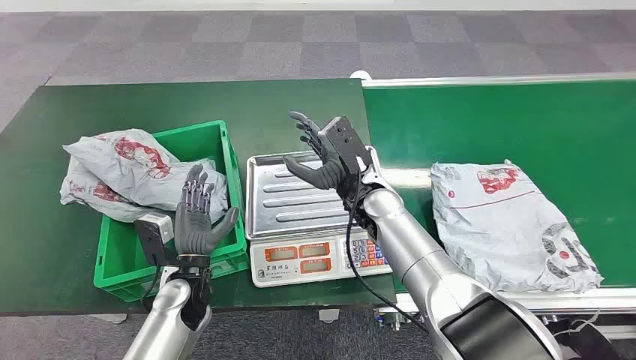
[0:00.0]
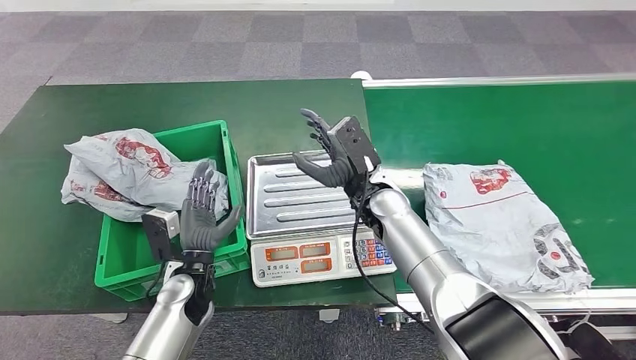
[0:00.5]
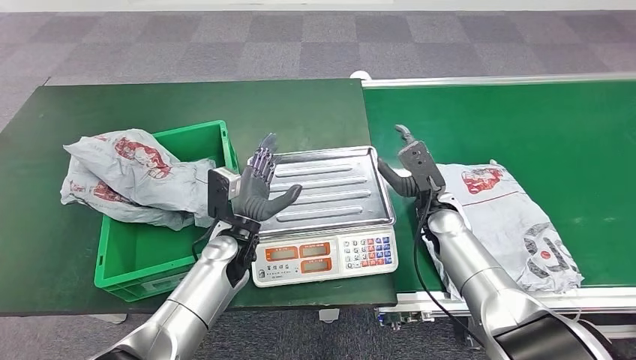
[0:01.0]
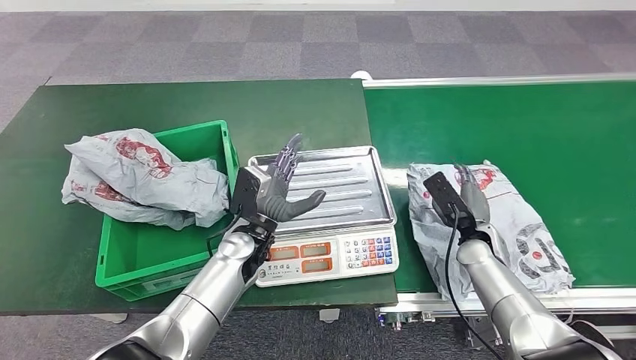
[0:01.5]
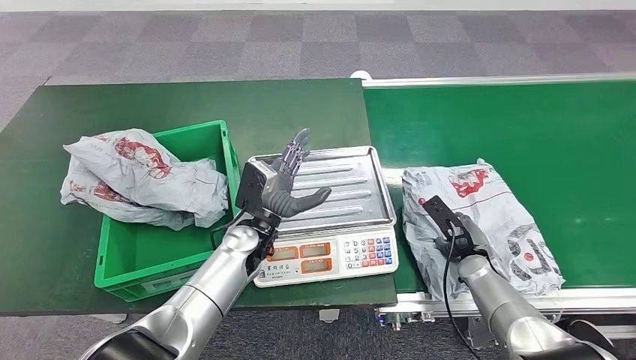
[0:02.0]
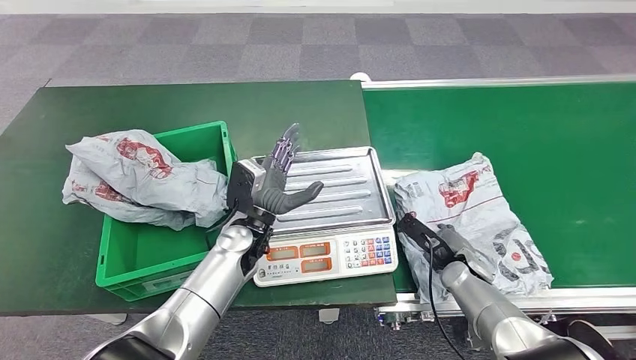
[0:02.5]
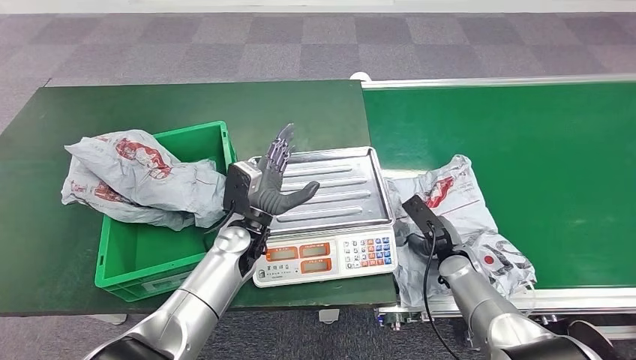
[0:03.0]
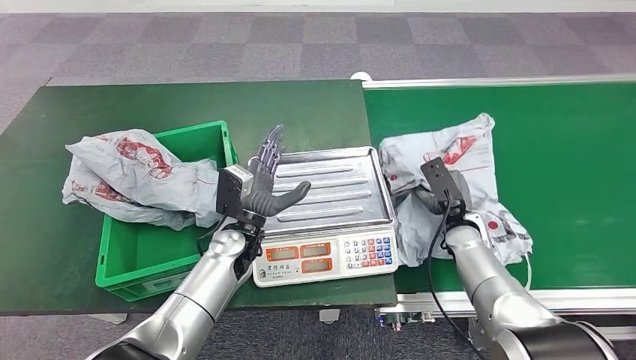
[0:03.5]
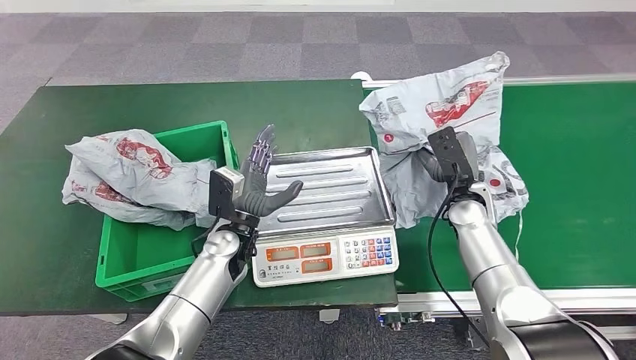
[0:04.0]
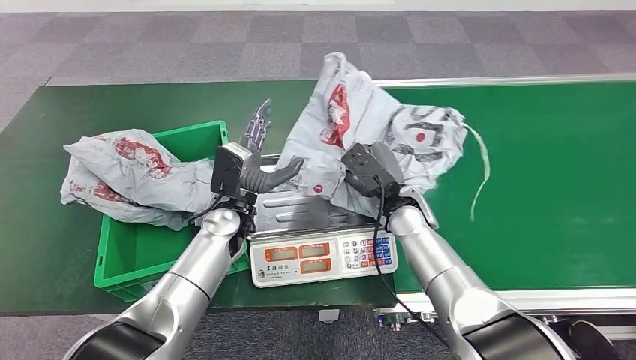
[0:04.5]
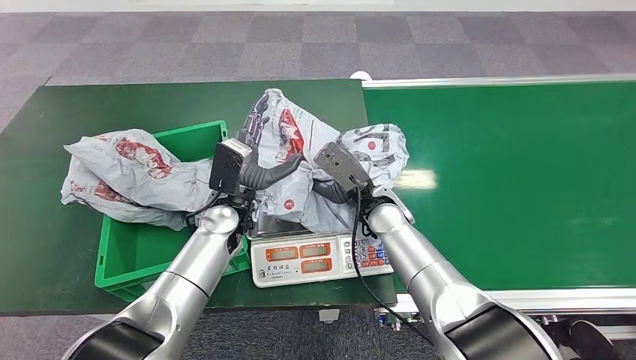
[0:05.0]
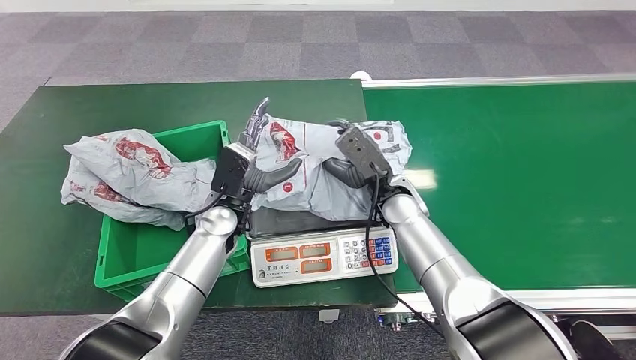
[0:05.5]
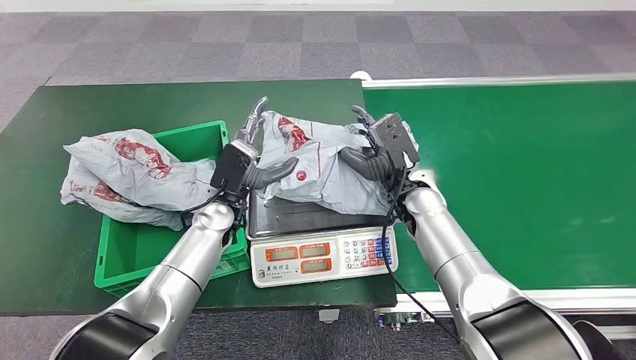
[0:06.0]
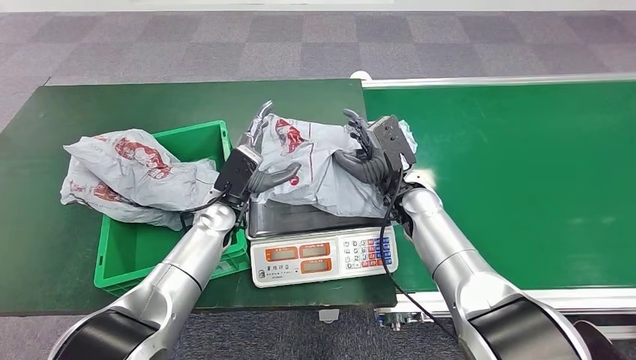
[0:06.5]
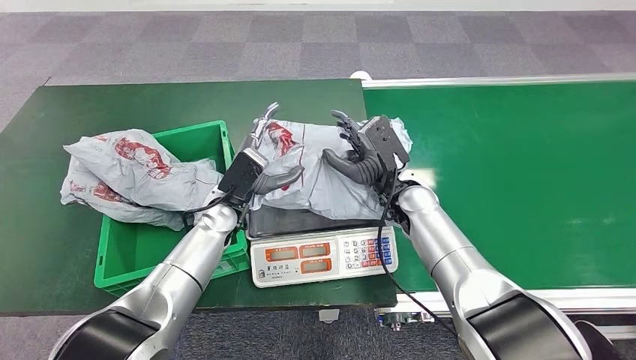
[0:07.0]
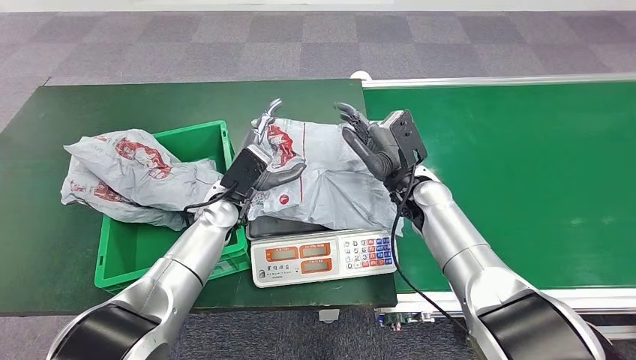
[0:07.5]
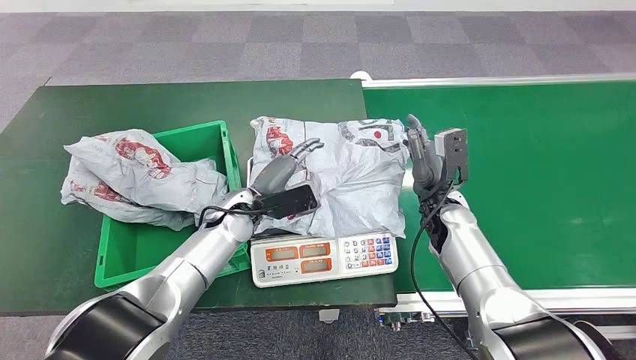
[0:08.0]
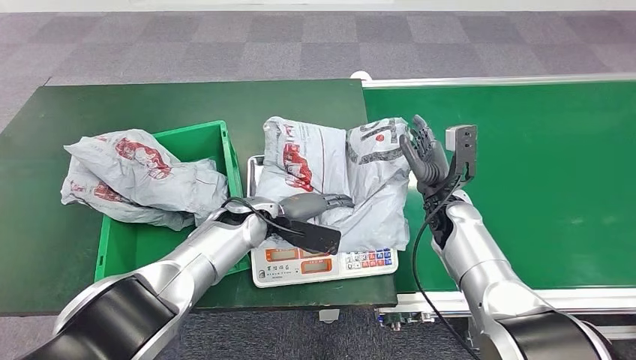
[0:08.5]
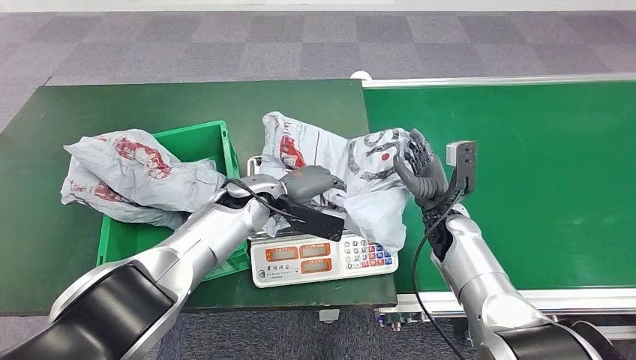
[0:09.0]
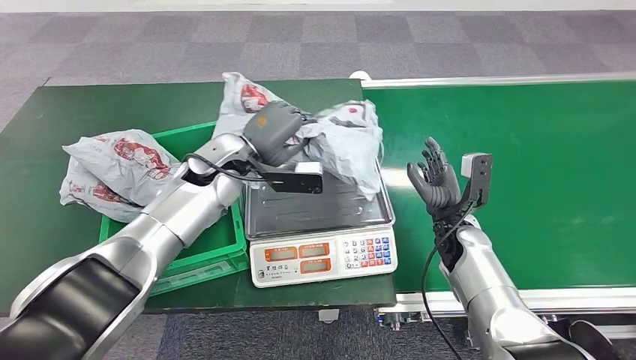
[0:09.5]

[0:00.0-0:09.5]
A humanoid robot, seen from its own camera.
Step, 0:00.0 to 0:03.5: Pick up the package from the conveyor belt.
Step, 0:04.5 to 0:08.0: Place the package onto the inbound machine.

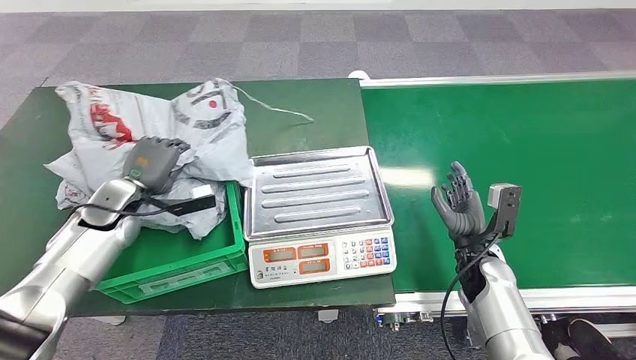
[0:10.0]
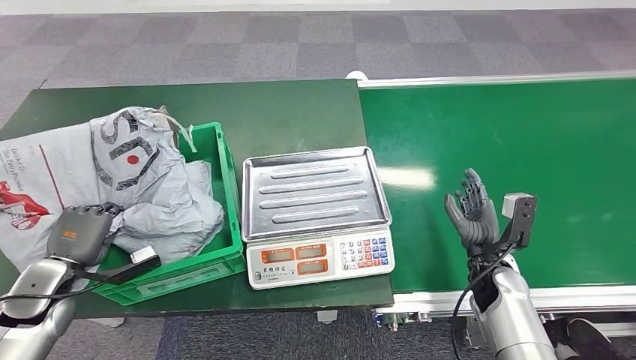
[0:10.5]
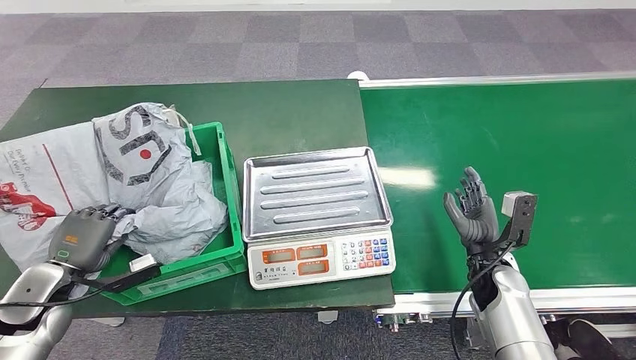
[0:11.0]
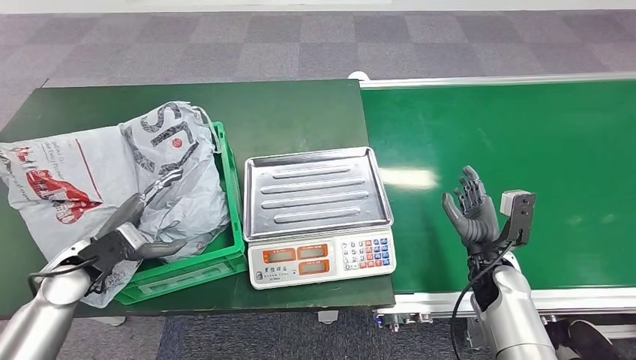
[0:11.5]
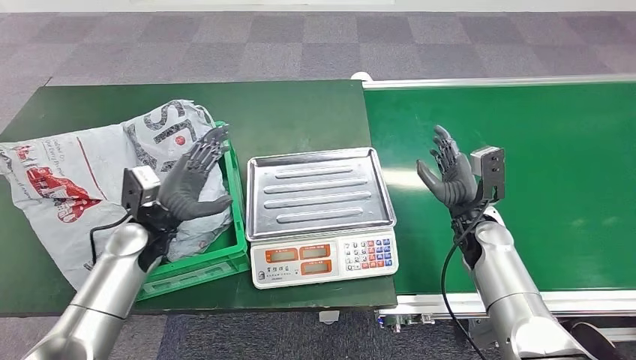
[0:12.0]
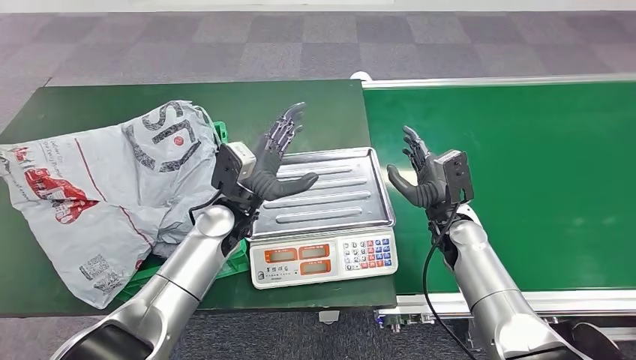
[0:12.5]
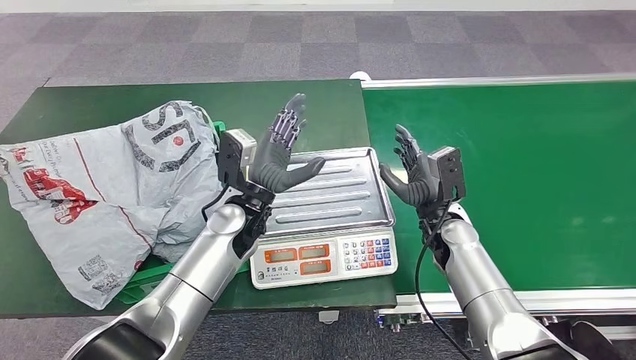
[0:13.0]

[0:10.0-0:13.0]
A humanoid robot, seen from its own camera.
Step, 0:10.5 to 0:13.0: Place the package into the parcel locker.
